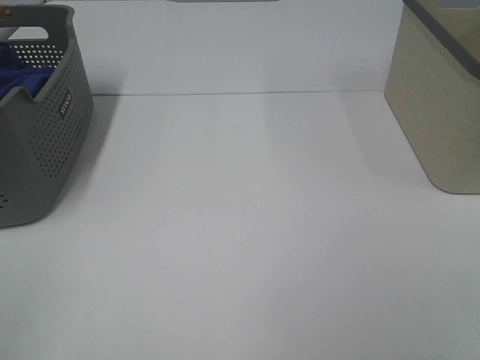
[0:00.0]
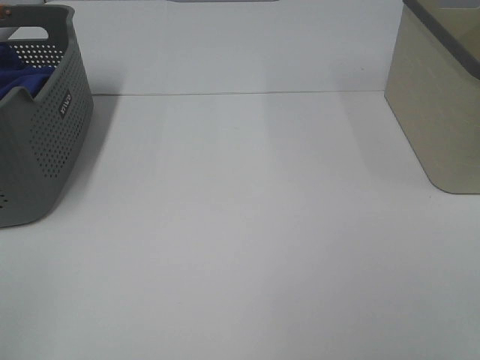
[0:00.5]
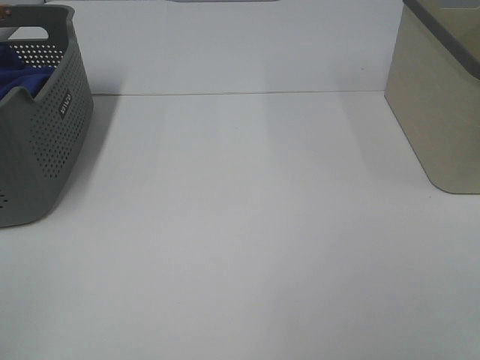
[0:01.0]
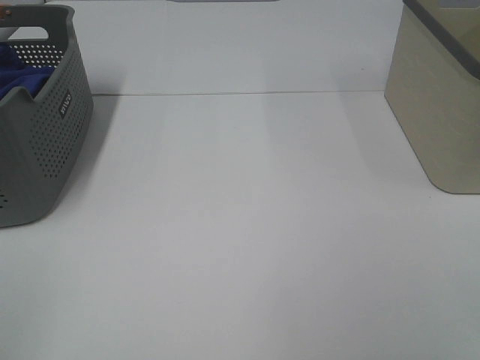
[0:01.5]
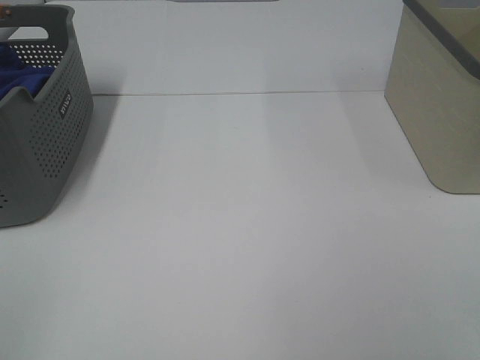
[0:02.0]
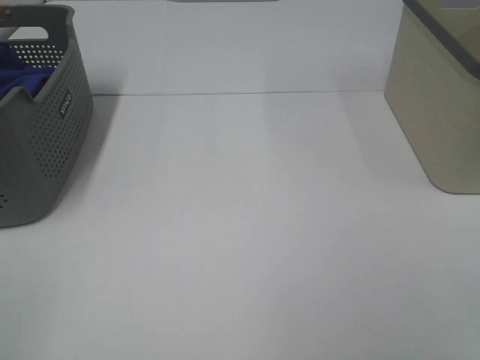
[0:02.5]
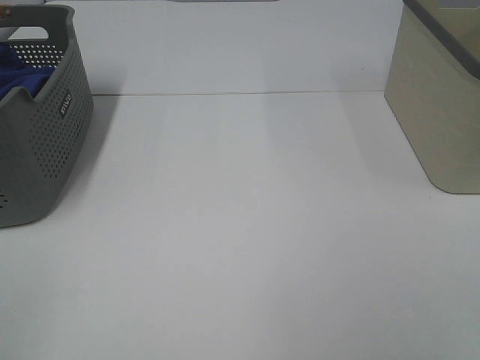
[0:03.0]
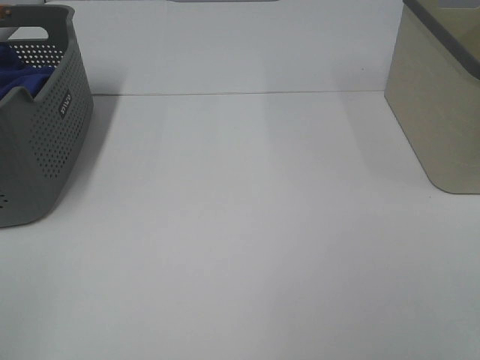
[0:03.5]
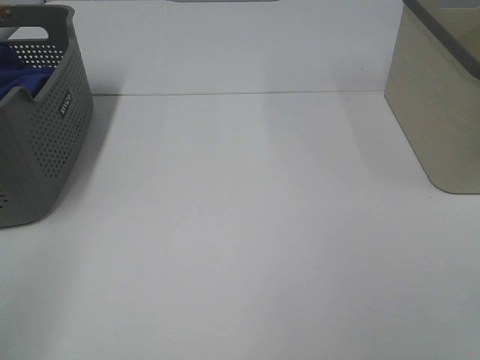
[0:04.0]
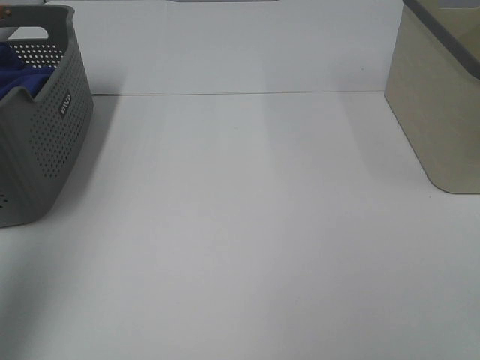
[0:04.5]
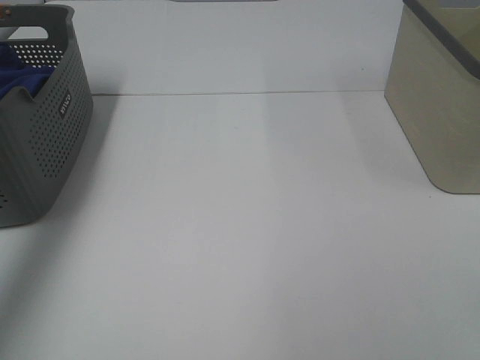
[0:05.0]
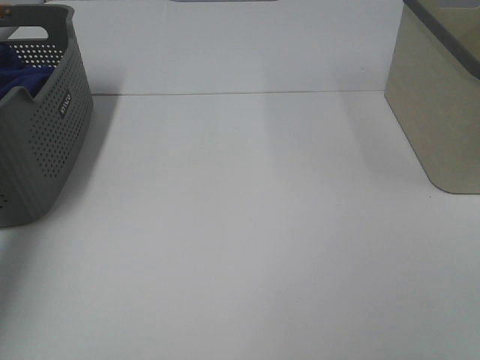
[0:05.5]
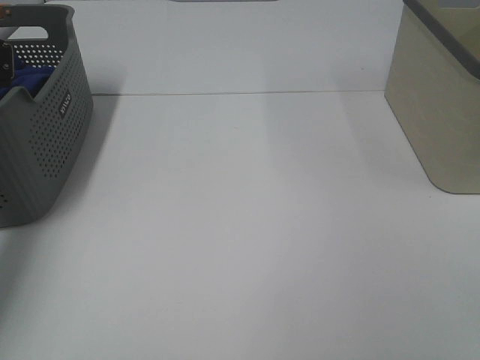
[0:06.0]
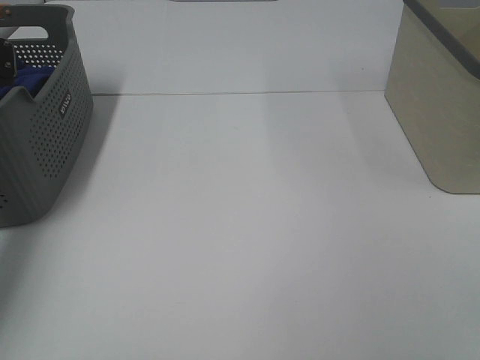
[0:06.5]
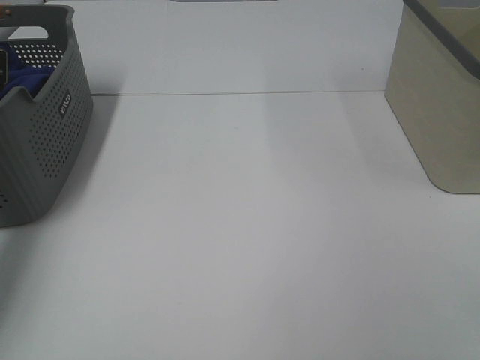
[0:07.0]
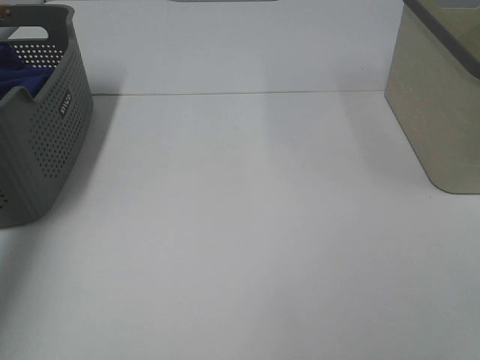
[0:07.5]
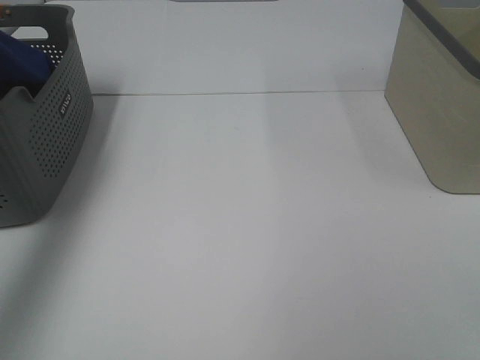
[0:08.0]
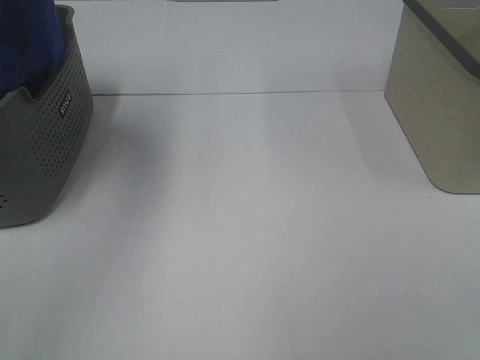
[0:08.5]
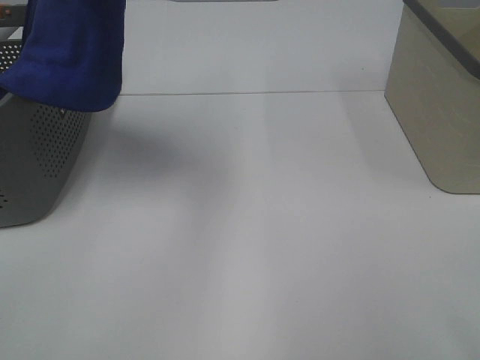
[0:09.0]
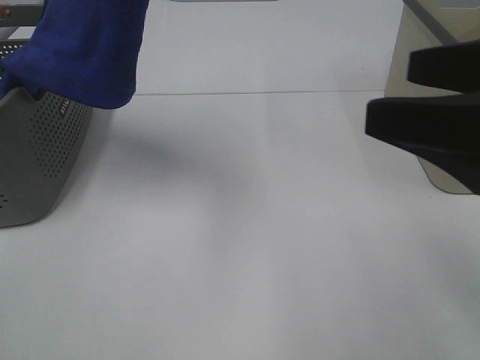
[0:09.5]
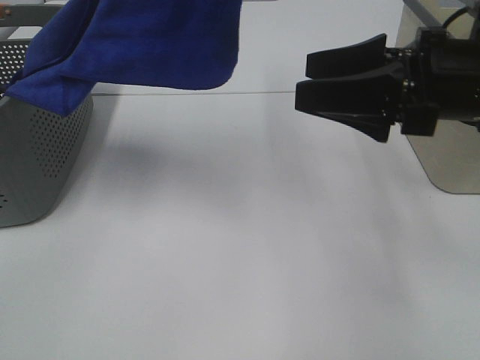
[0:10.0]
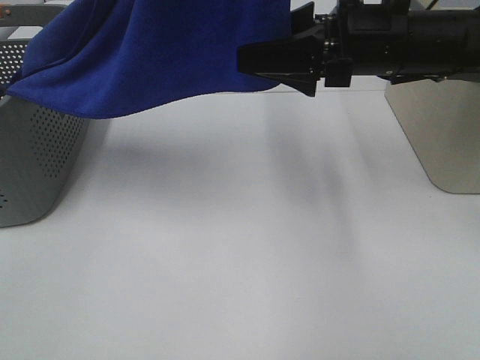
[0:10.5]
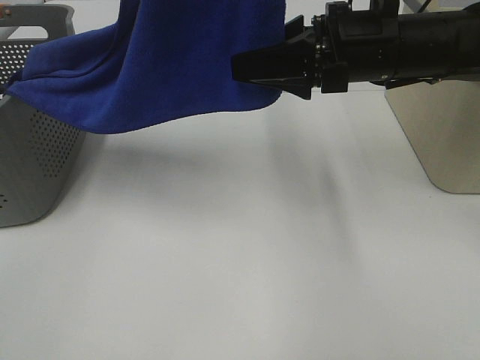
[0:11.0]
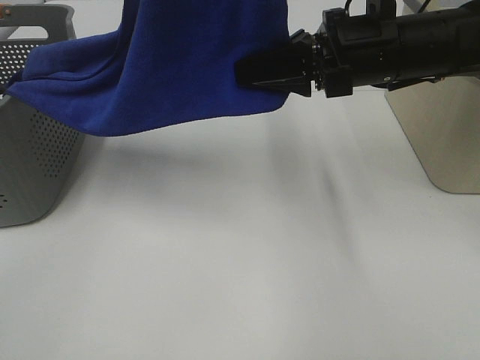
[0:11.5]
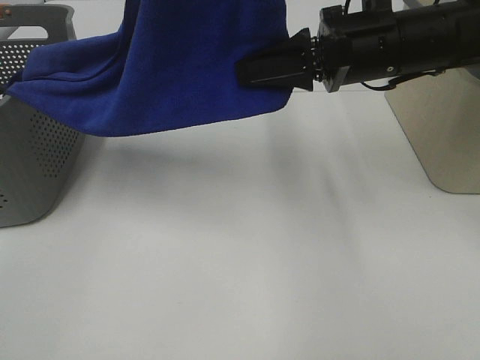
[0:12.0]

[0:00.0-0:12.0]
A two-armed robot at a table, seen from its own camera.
Task of the whole recording: Remove the towel and place it.
Step, 0:08.5 to 0:11.5: Right hand: grab a corner of the blue towel and straighten it.
0:00.0 to 0:02.0: The two grippers keep their place.
0:04.0 to 0:06.0: The left gripper travels forward and downward by roughly 40 cm.
0:06.0 to 0:08.0: The left gripper travels upward by roughly 25 cm, and closes.
0:08.0 to 0:10.0: The right gripper goes about 25 cm forward, while the left gripper heads to the right, covering approximately 25 cm.
0:10.0 to 0:12.0: The right gripper travels forward and to the left by approximately 10 cm, and closes.

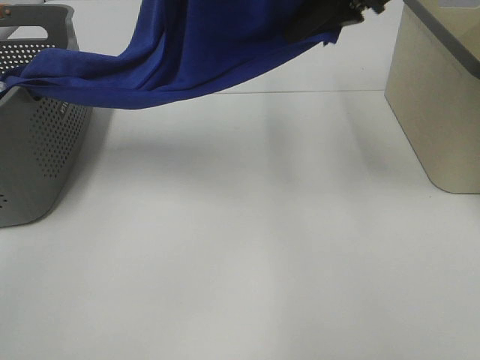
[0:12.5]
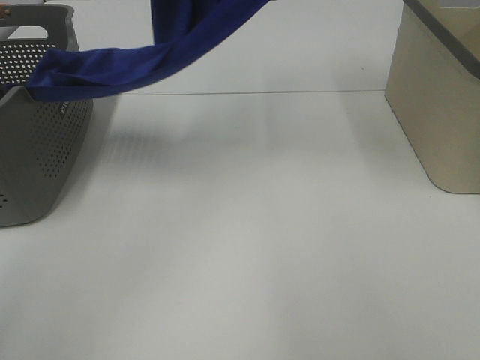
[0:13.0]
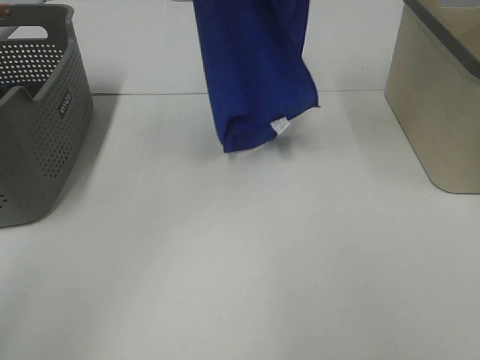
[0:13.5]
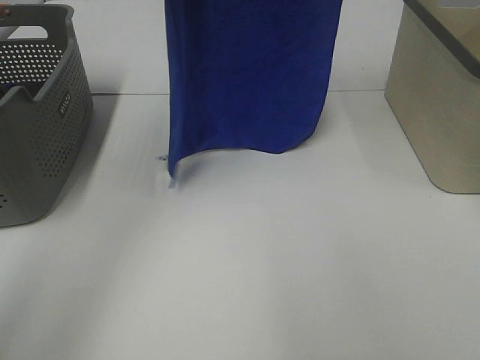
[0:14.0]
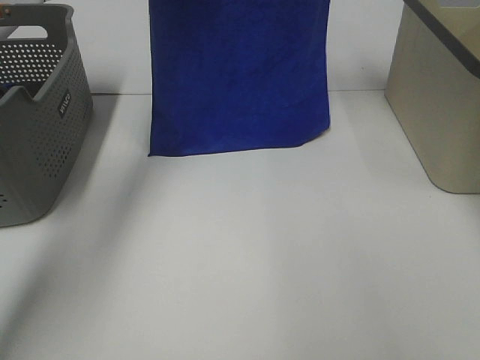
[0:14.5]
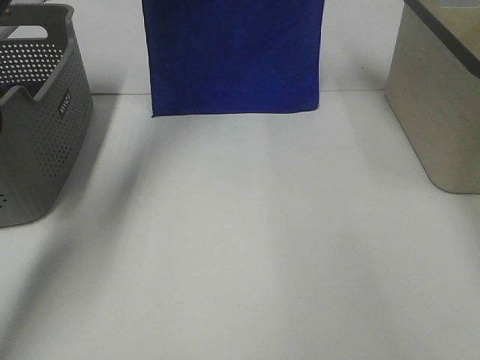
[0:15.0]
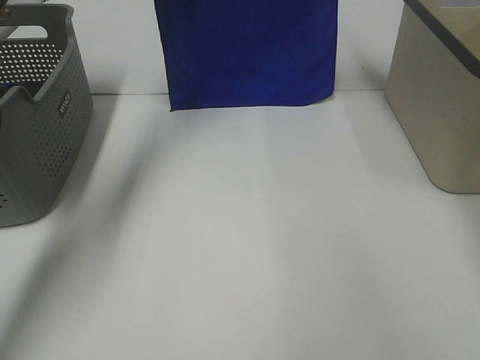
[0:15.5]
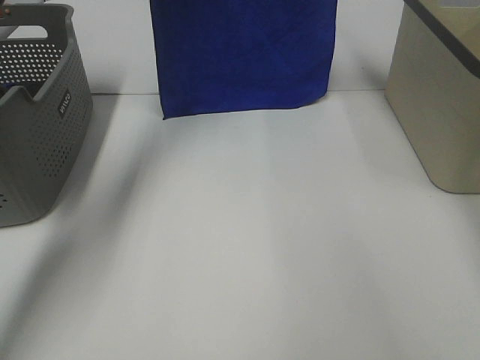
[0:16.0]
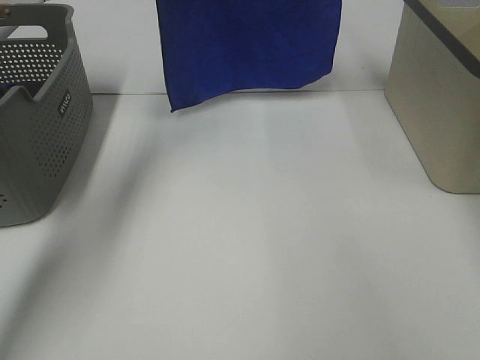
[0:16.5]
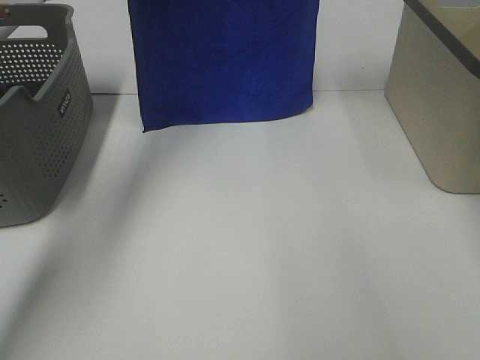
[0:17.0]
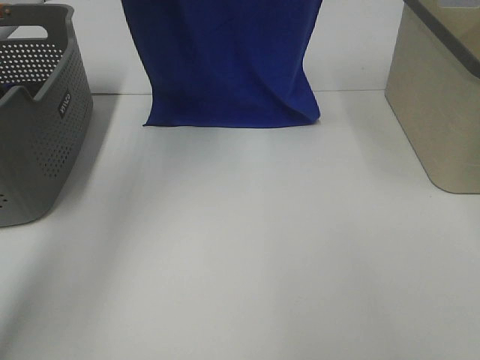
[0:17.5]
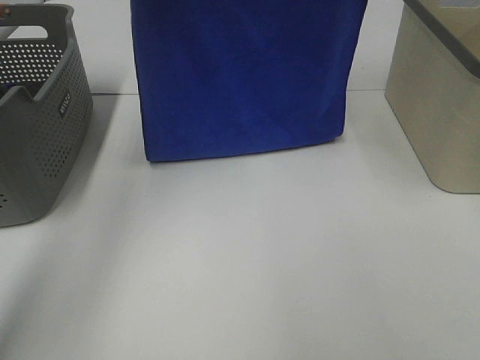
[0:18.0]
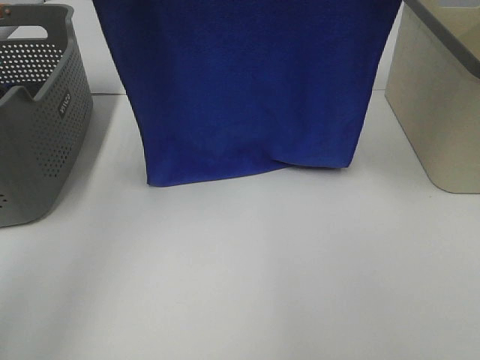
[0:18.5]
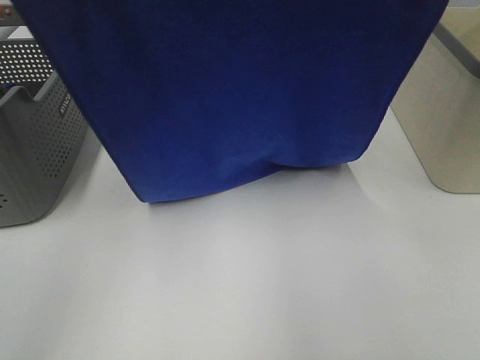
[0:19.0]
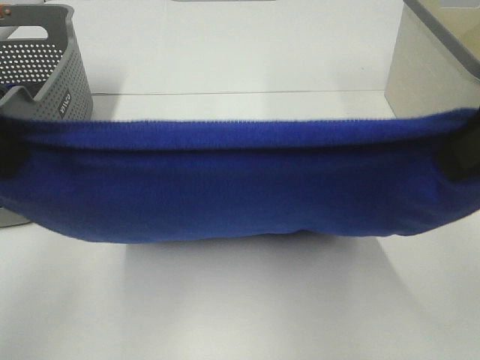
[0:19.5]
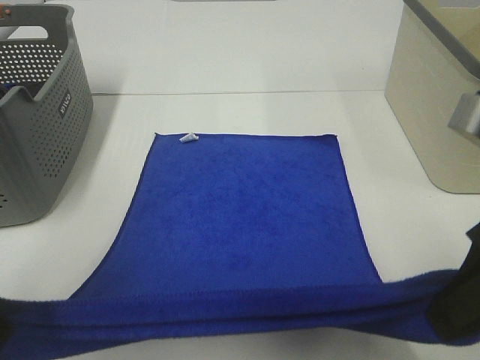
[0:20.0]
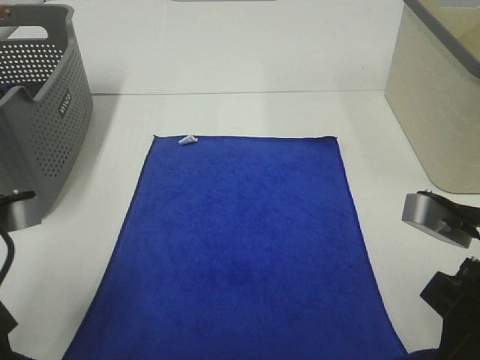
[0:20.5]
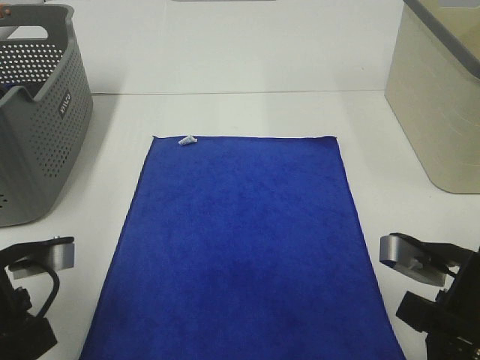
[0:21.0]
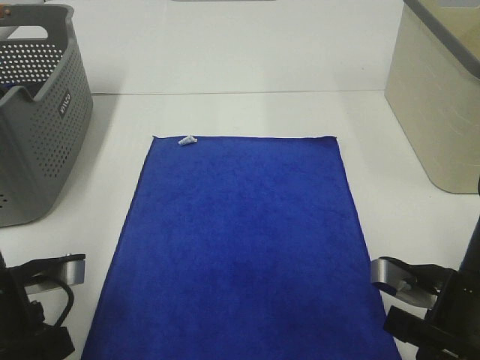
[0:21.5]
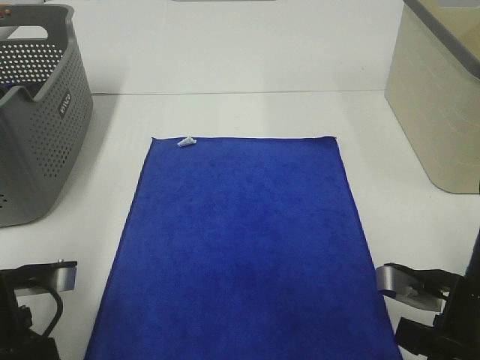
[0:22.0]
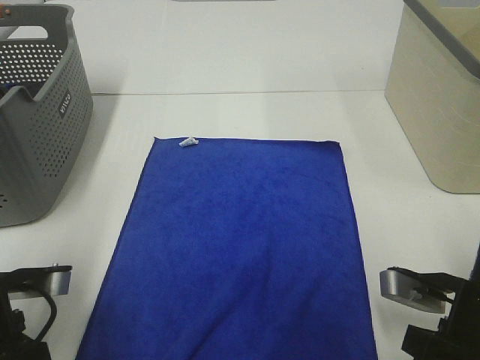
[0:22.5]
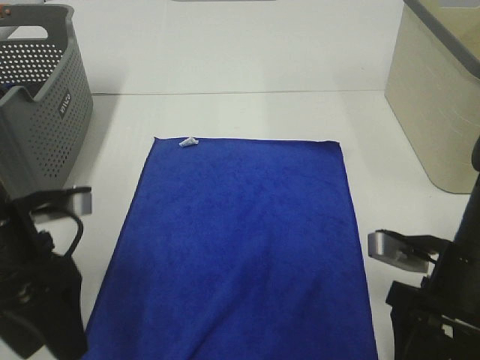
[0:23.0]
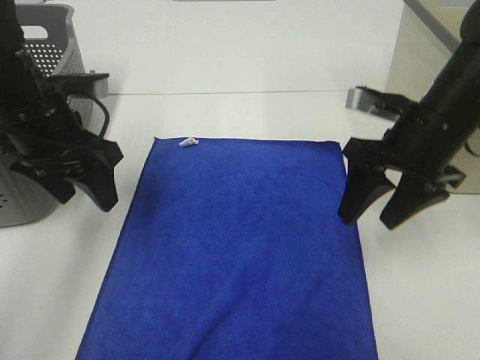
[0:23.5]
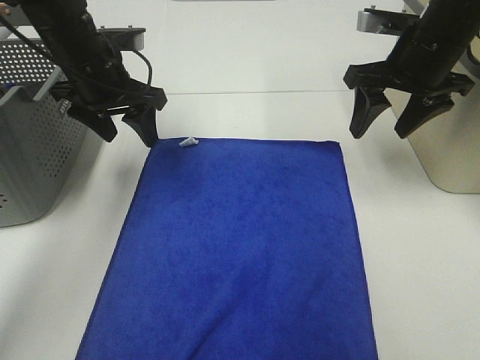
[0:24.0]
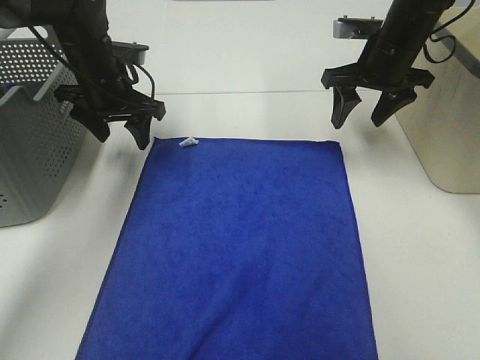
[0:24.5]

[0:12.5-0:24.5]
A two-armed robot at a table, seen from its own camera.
Task of the whole recording: Remove the towel and place it.
Step, 0:12.5 to 0:17.5: Left hand: spread the blue towel flat on the table.
Step, 0:12.5 to 0:17.5: Right hand: spread the blue towel flat on the table.
0:12.5 to 0:14.5: The right gripper heads forward and upward, covering approximately 15 cm; the left gripper heads forward, covering some 20 cm.
0:14.5 to 0:16.5: The grippers make only small movements.
0:16.5 to 0:18.5: Both grippers travel together backward, about 15 cm.
0:18.5 to 0:20.5: Both grippers travel together downward and backward, approximately 30 cm.
0:20.5 to 0:22.5: Both grippers travel together downward, about 10 cm. The left gripper opens up. The right gripper opens.
0:22.5 to 0:24.5: Both grippers travel together forward, about 30 cm.

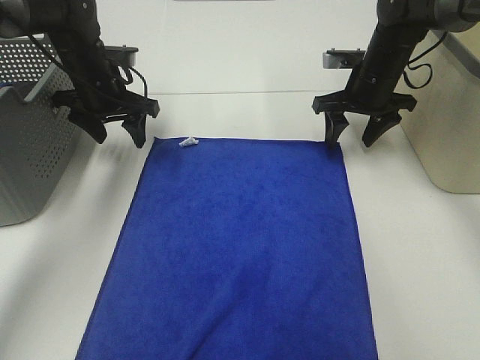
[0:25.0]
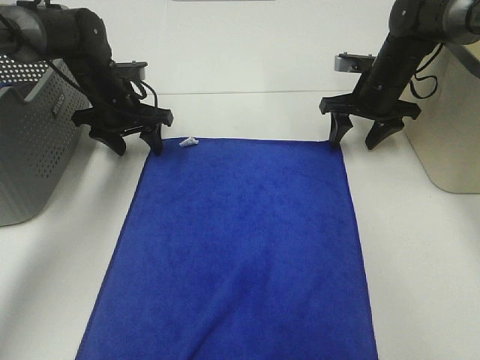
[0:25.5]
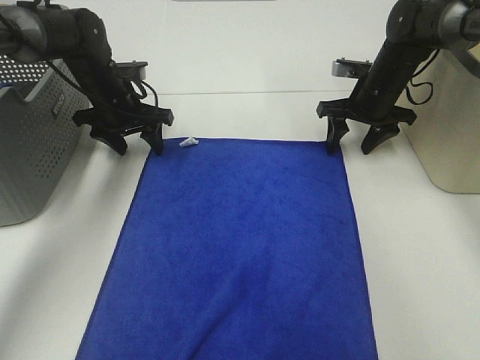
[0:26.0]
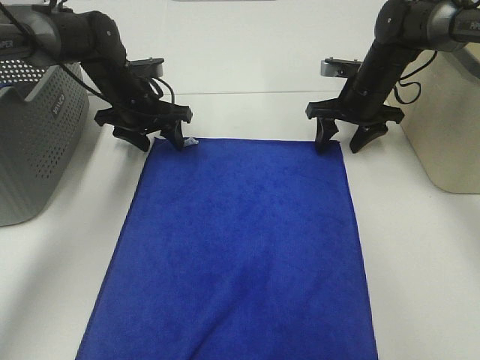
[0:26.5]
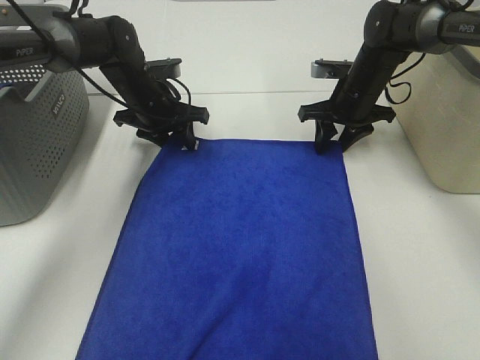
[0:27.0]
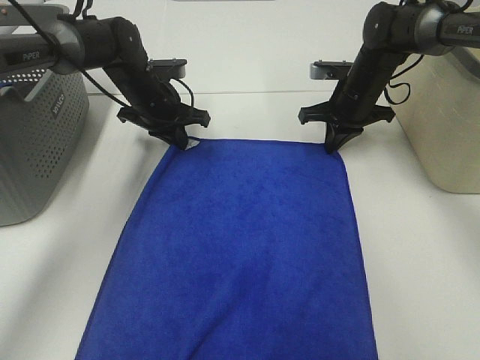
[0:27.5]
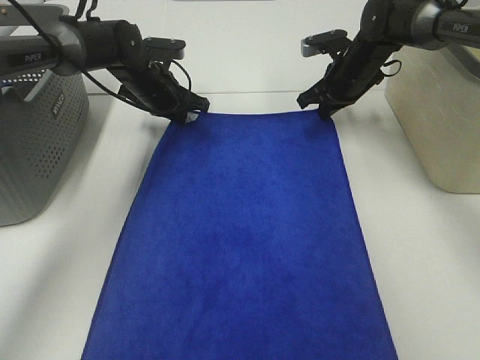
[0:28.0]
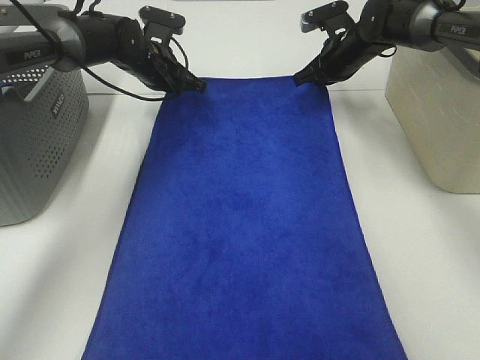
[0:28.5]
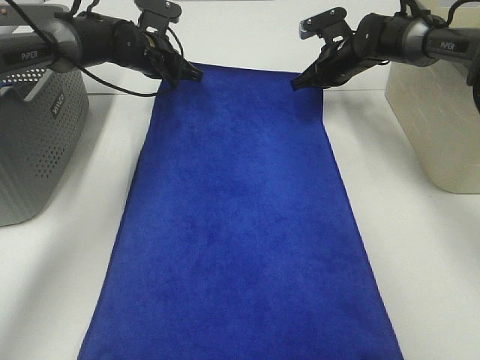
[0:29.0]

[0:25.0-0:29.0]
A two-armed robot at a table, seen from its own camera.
Task of the whole recording: Remove the towel and place it.
0:25.0 to 0:27.0: The left gripper is displaced to the right by approximately 5 cm.
0:27.0 to 0:29.0: The two grippers go some 5 cm forward. The left gripper closes; the right gripper closes.
